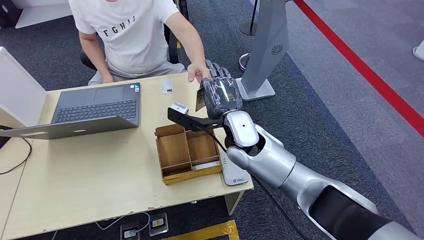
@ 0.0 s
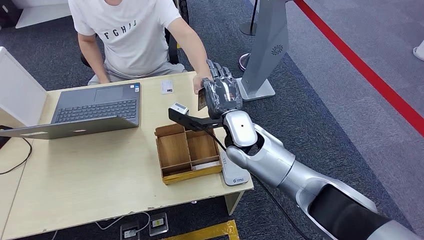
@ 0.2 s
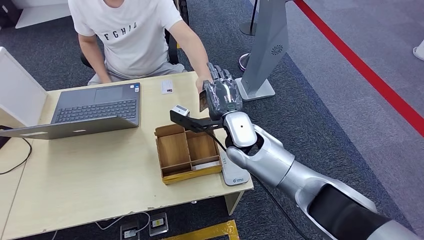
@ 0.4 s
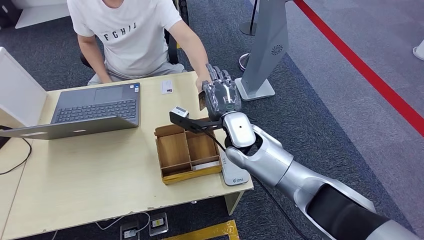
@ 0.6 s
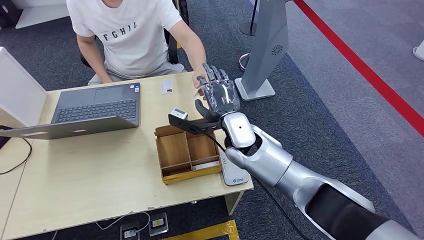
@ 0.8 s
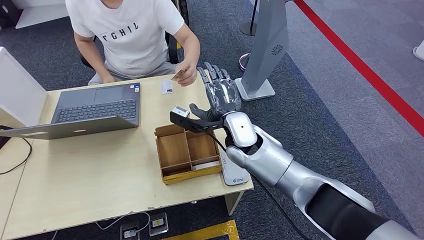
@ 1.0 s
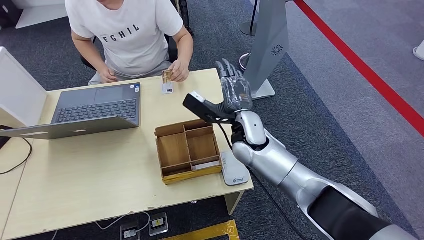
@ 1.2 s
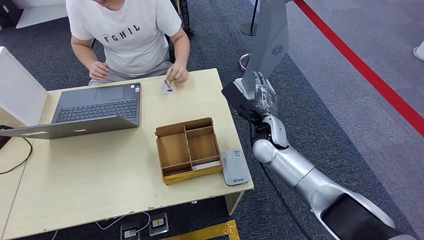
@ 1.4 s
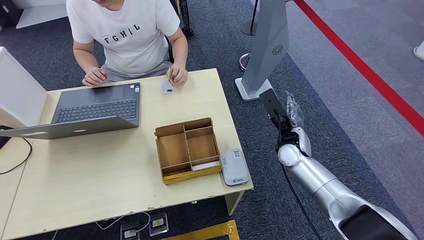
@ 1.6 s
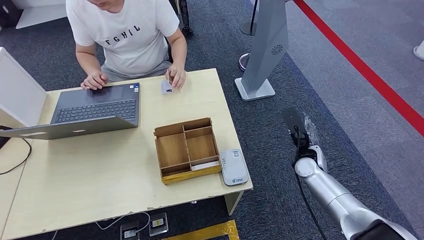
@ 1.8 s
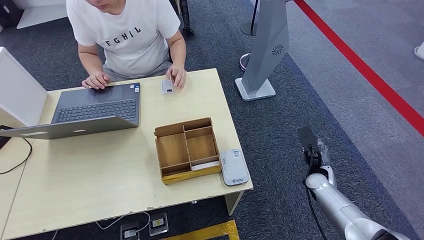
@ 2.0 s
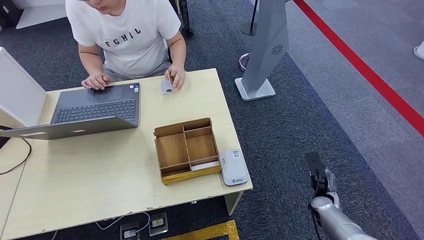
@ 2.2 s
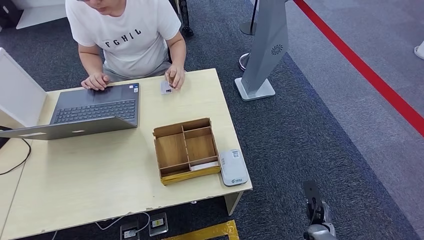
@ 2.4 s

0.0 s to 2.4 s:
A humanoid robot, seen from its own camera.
Step, 0.0 to 2.4 s: Hand the room key to the person.
0.0 to 1.2 s: The hands move only a little.
1.2 to 2.4 s: The right hand goes approximately 40 cm downward, backward and to the right.
